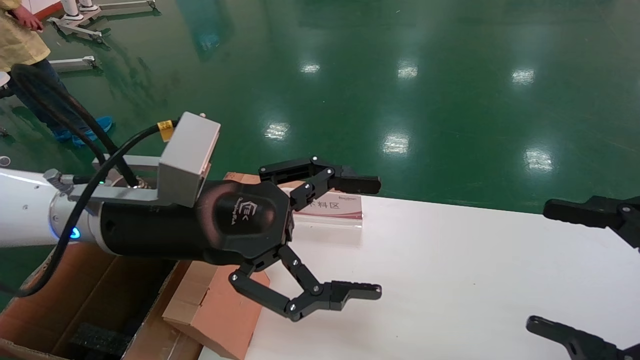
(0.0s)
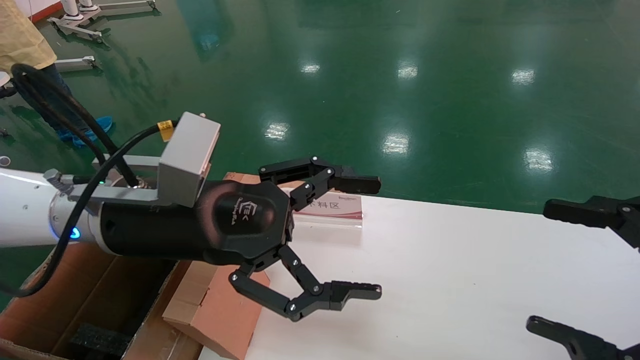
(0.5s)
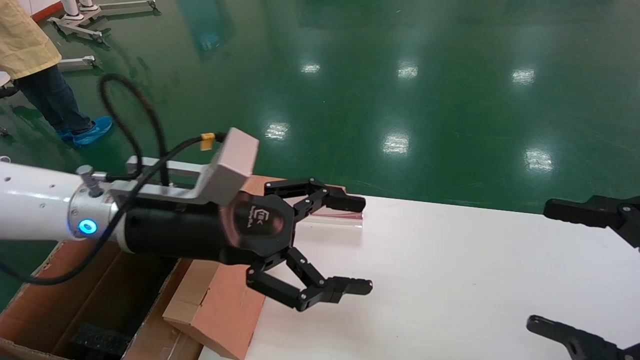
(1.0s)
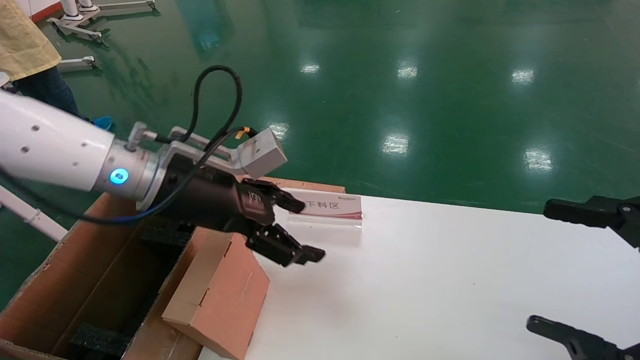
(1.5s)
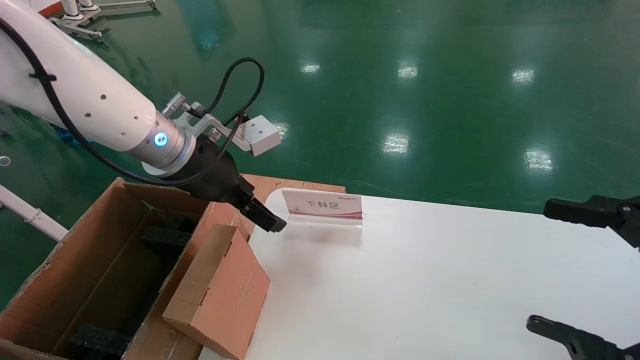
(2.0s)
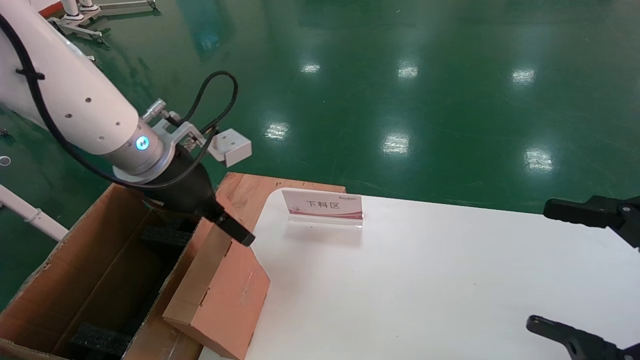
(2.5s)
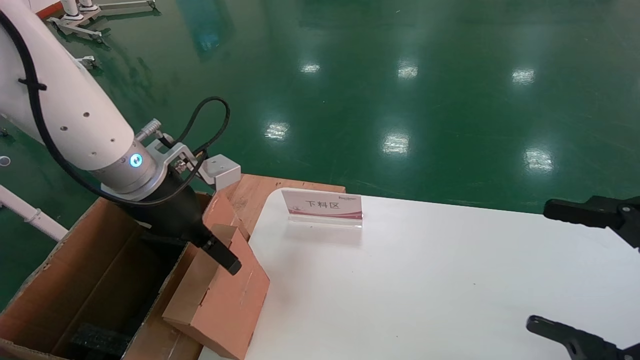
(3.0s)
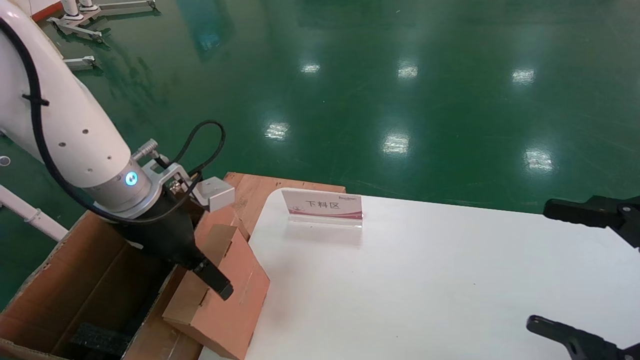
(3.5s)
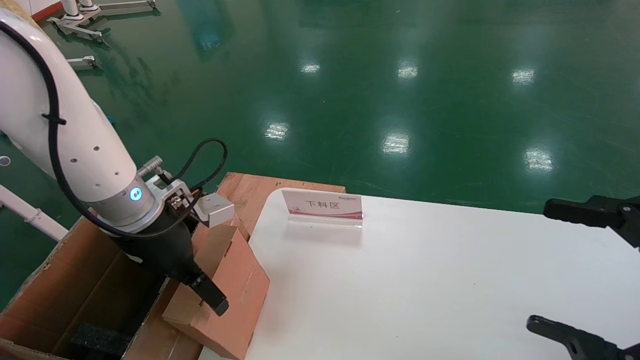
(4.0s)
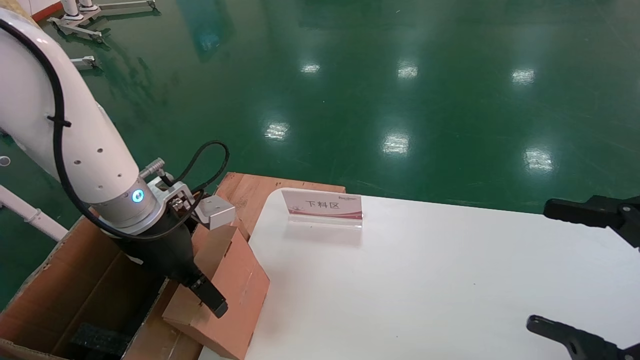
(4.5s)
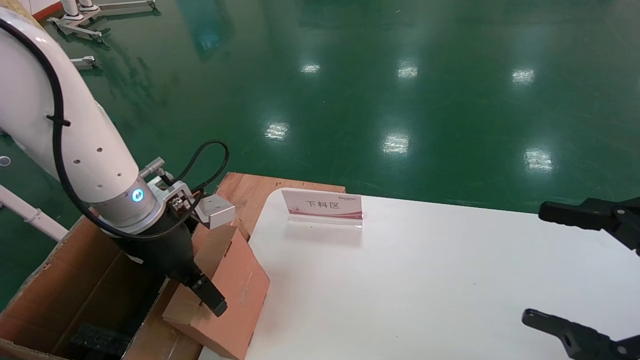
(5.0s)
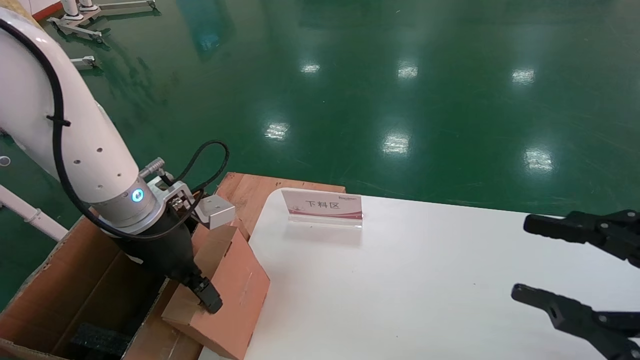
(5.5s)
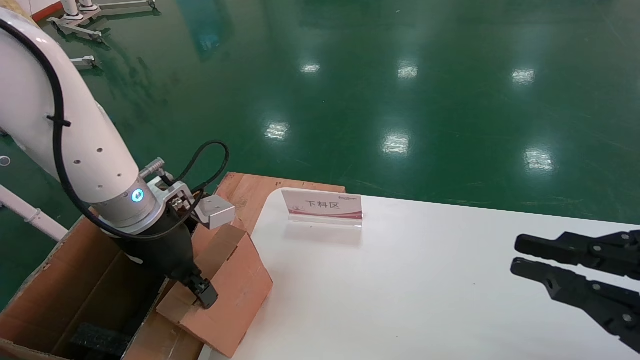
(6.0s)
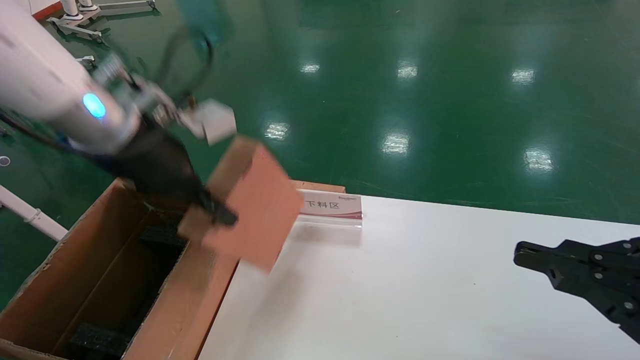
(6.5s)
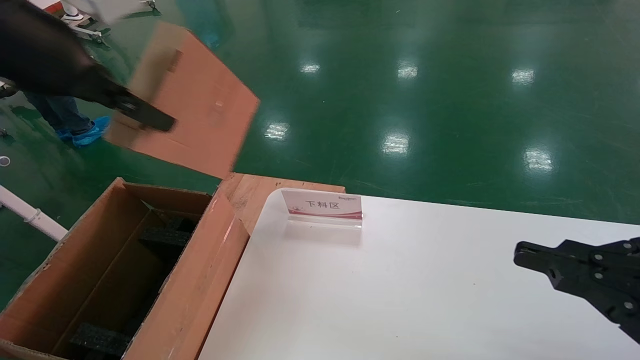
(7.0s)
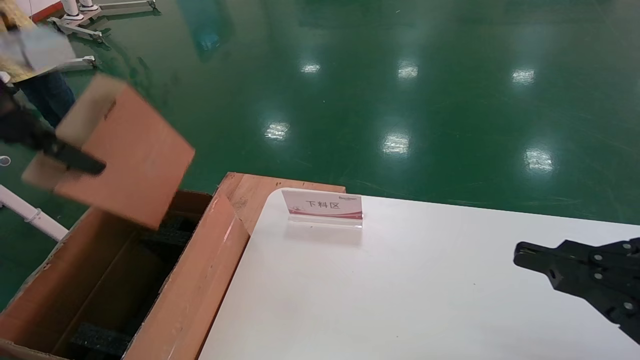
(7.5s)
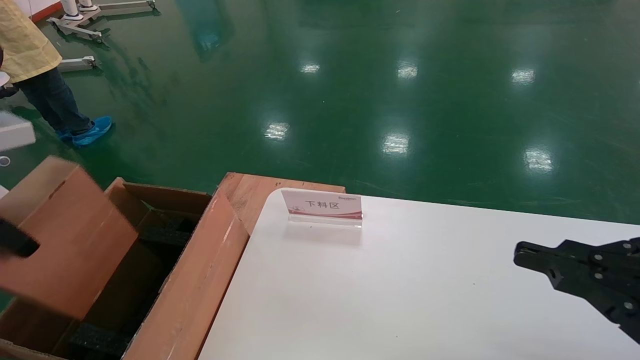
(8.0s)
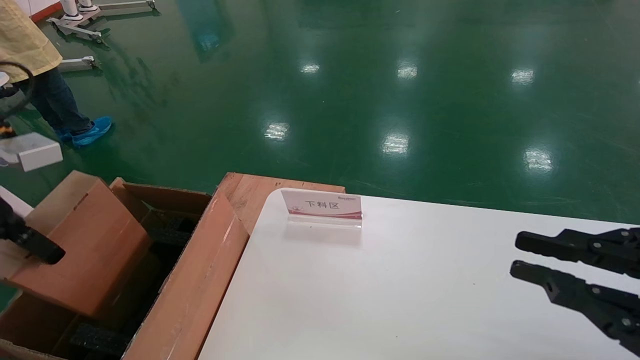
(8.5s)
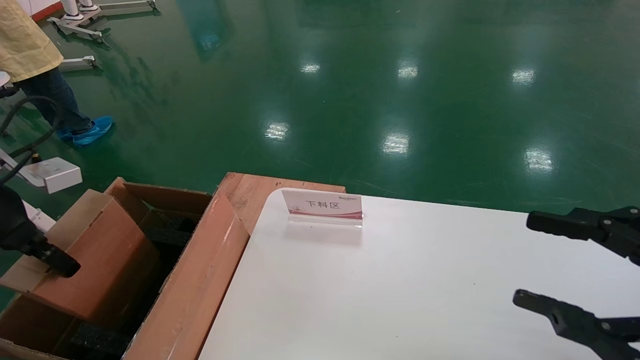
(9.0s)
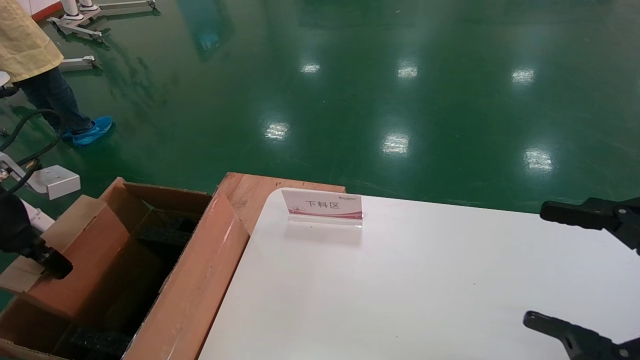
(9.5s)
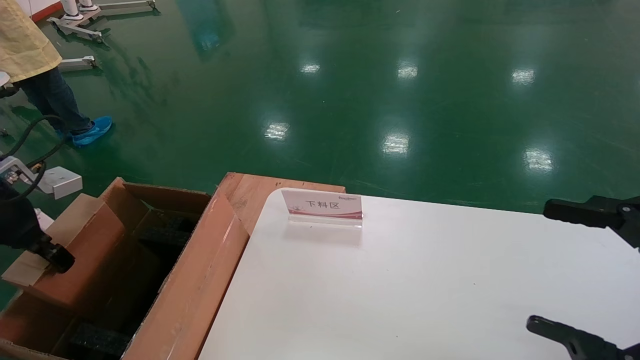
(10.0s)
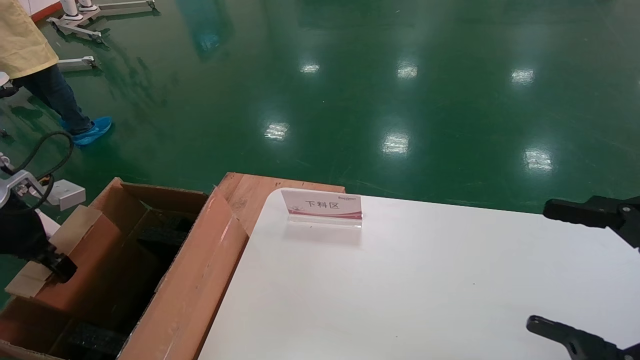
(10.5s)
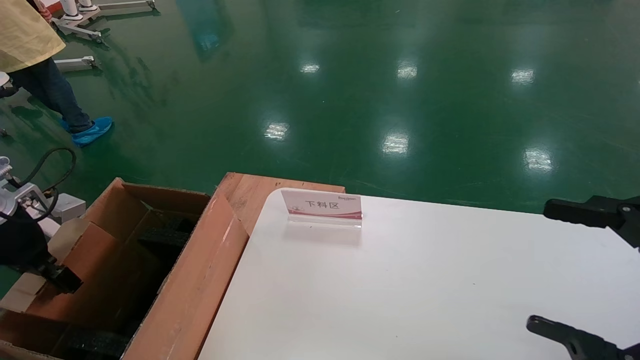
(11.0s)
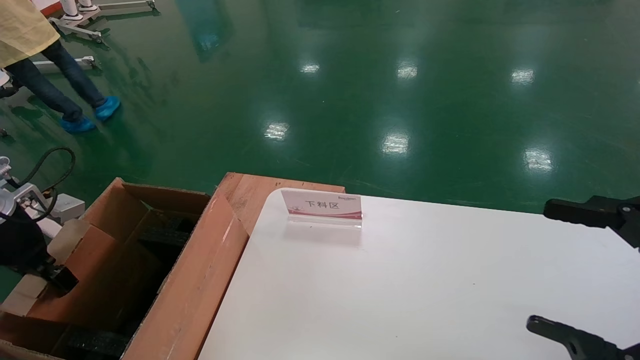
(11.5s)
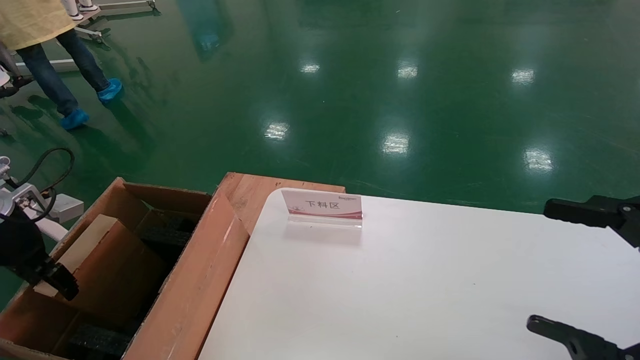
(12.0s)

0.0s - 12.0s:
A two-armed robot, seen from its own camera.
Task of the whole recording: pick up the small cardboard box and load it into the large cardboard box.
Step, 1.5s - 5.5s: Pick up the mouse and power cord box.
0.0s - 2.0s: The left gripper goes roughly 10 cm forward.
2.0s - 4.0s: The left gripper travels downward by about 5 cm.
4.0s - 6.0s: The left gripper closes. The right gripper closes its fingers.
6.0s - 8.0s: The left gripper heads to the left, upward and backward, covering approximately 25 cm.
8.0s - 10.0s: The left gripper travels downward, forward and to the left by roughly 15 cm, while the right gripper opens.
10.0s - 12.0s: The left gripper ends up roughly 5 cm from where it was, and opens.

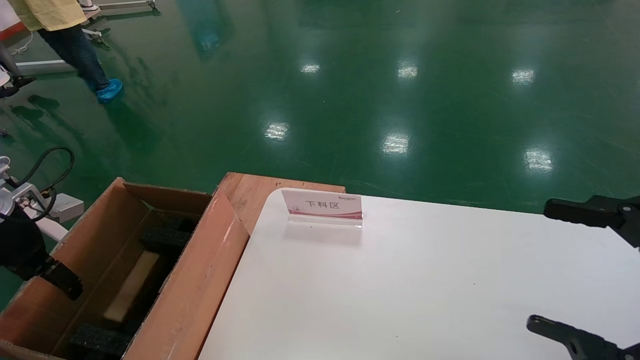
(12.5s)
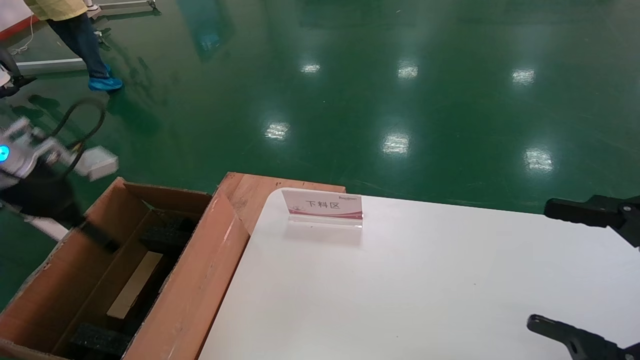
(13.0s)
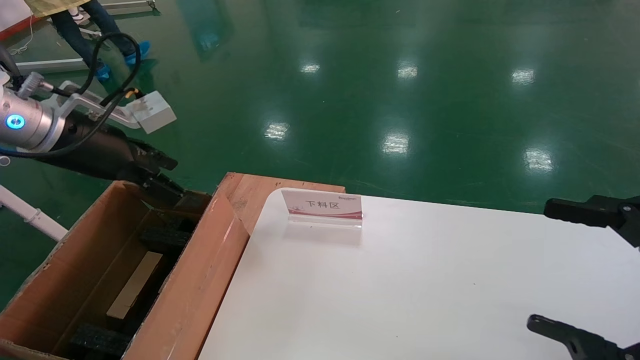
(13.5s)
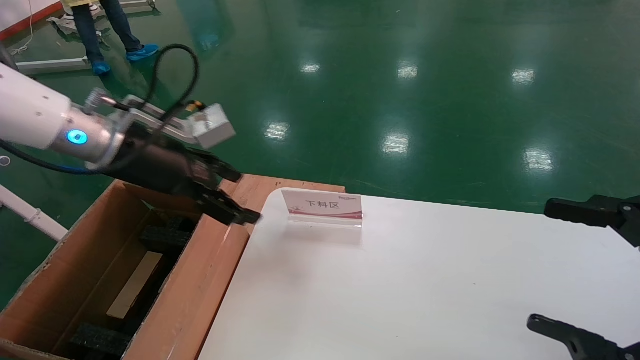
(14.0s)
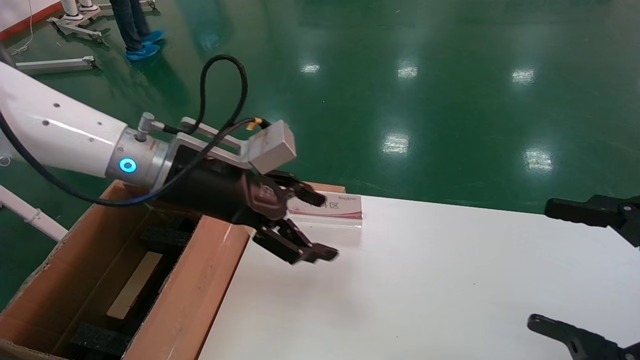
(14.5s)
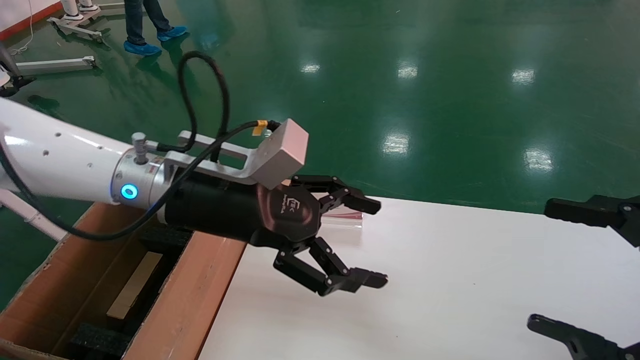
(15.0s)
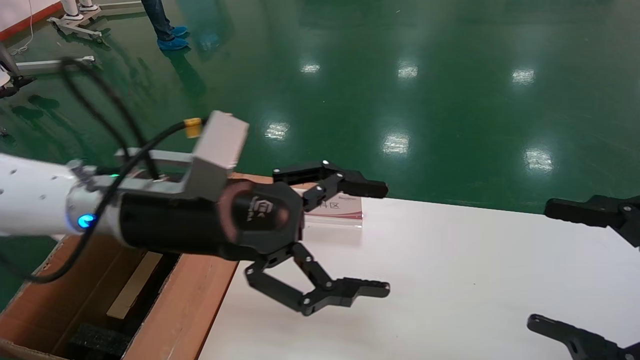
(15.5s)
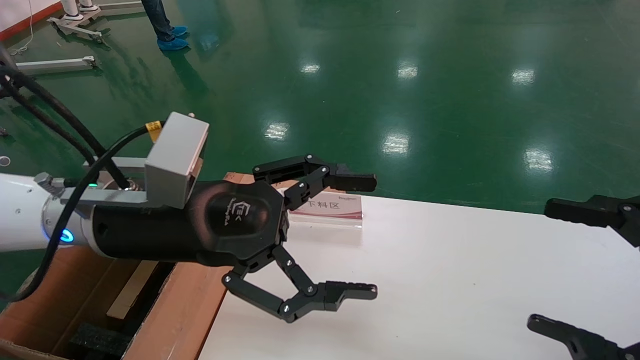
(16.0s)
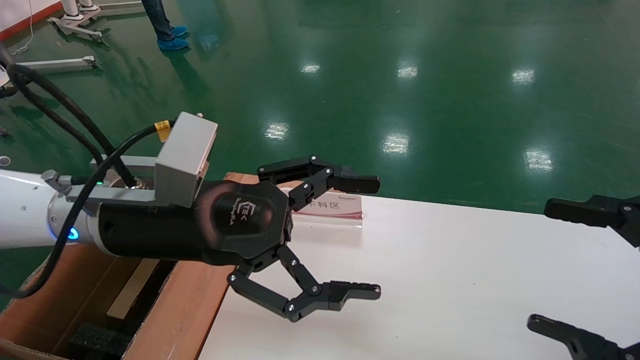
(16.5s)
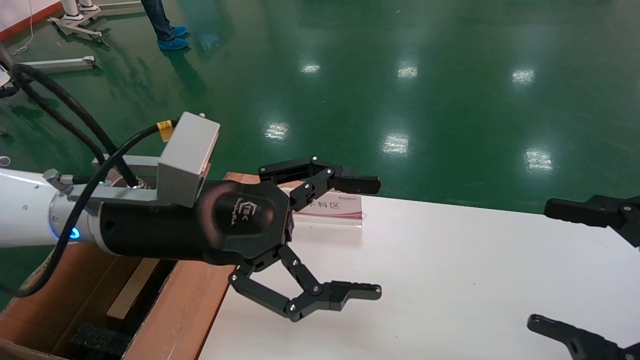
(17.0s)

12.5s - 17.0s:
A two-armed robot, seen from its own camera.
Task of the whole recording: pick up the small cardboard box and load it into the large cardboard box.
12.5s - 14.5s: The left gripper heads to the right, covering roughly 30 cm.
14.5s - 17.0s: The left gripper shifts approximately 5 cm backward.
